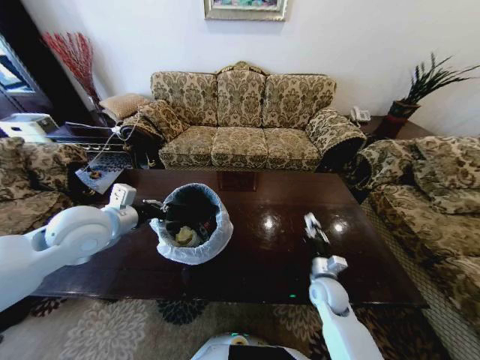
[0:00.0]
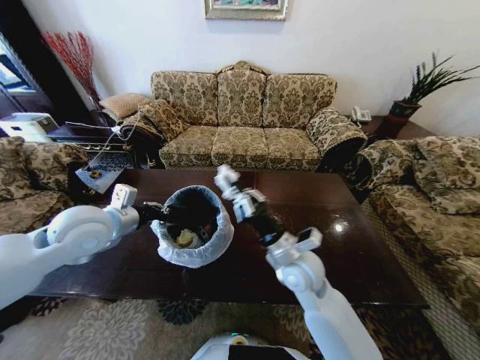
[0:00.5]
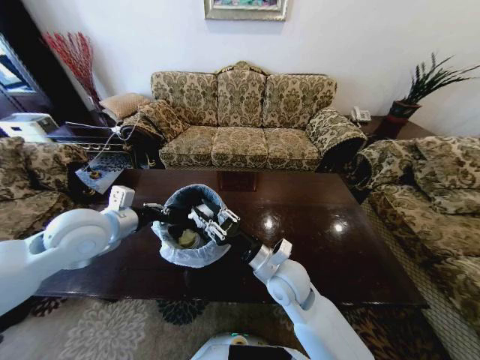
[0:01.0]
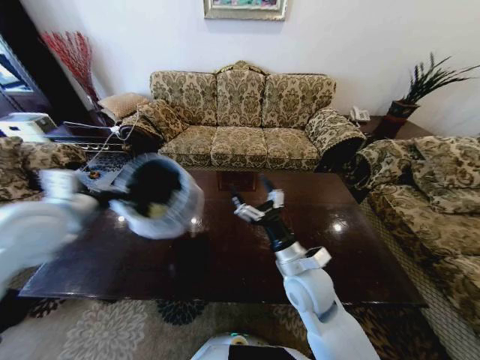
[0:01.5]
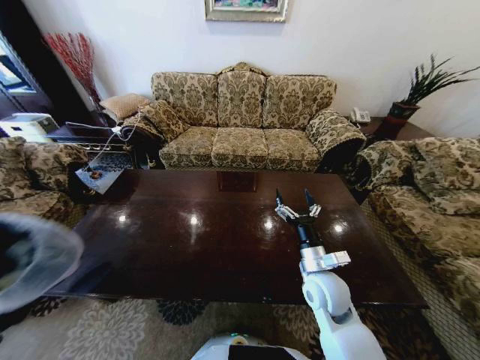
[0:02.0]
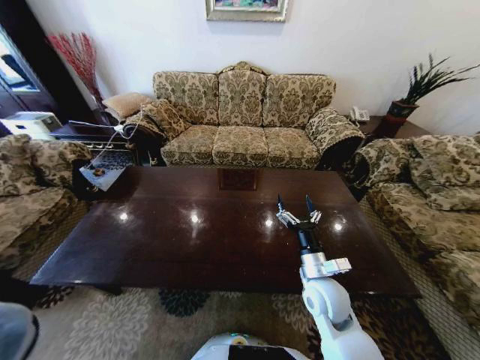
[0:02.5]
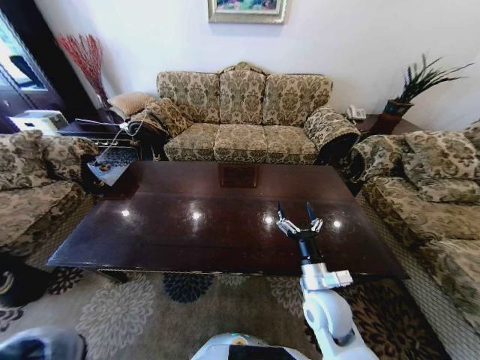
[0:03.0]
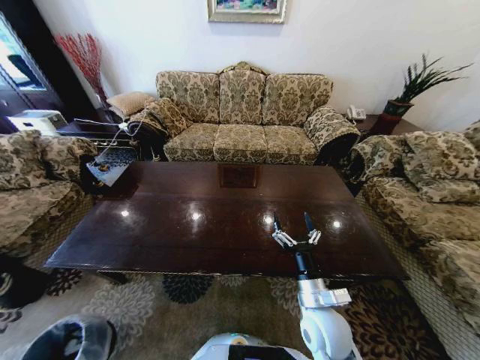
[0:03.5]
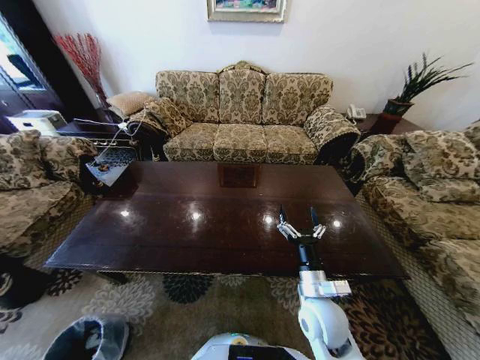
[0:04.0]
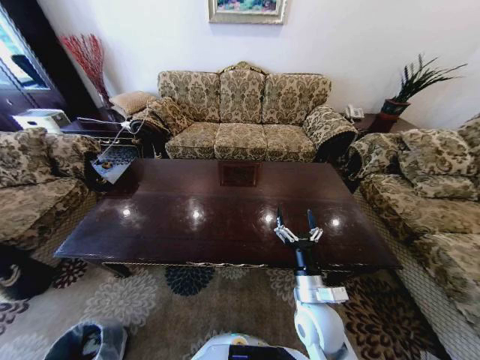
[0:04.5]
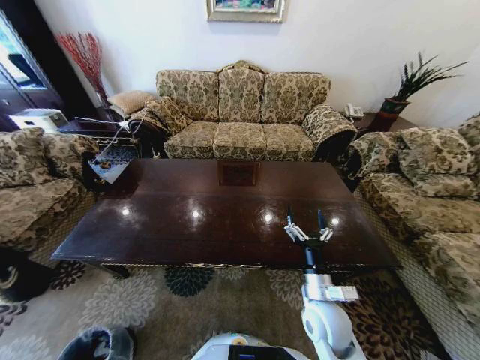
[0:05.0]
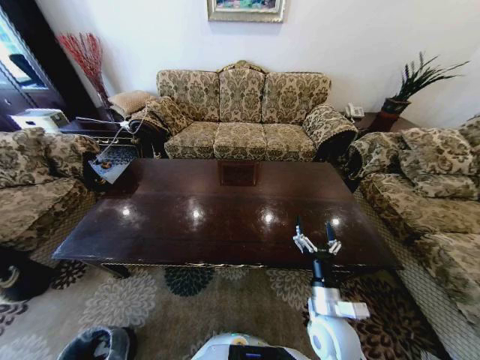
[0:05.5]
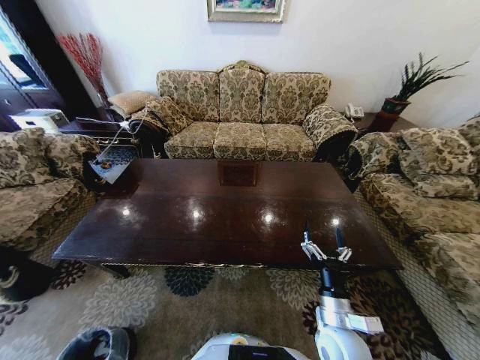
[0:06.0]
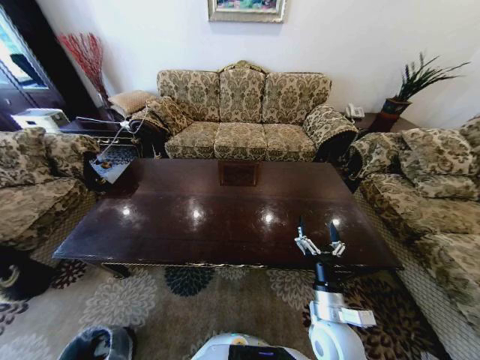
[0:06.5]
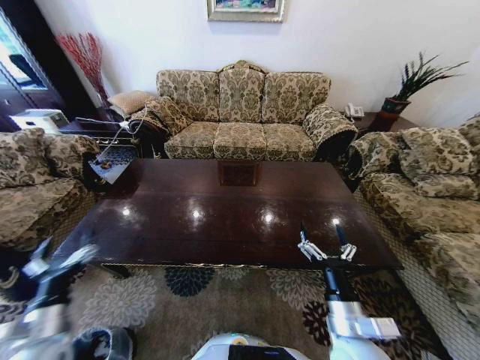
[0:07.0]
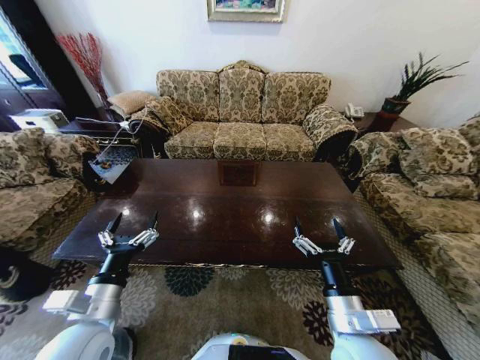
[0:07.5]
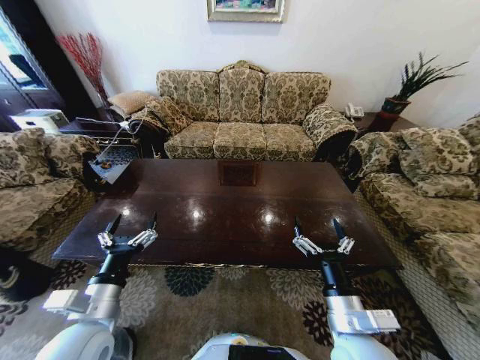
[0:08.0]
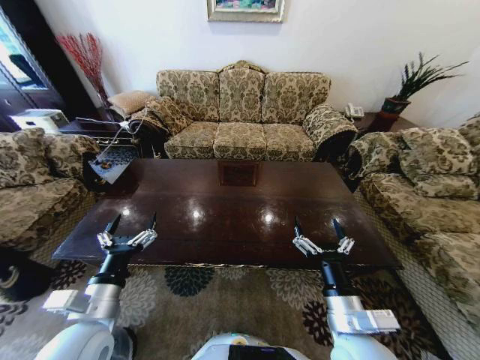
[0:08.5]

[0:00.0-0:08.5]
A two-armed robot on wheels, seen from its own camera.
Task of the whole recording: Move to the front of the table and place the trash on the table into the trash bin.
0:00.0 to 0:02.0: The left gripper heads to the left and backward, covering some 30 cm; the right gripper heads upward, covering about 10 cm, reaches about 15 cm to the left, then returns, and opens its fingers.
0:02.0 to 0:04.0: The right gripper moves backward, approximately 5 cm; the left gripper travels downward by approximately 50 cm.
0:04.0 to 0:06.5: The left gripper goes about 10 cm backward, and opens its fingers. Meanwhile the right gripper ends up roughly 5 cm from where it was.
0:06.5 to 0:08.5: The left gripper heads upward, to the right and forward, covering about 50 cm, while the right gripper goes about 10 cm upward.

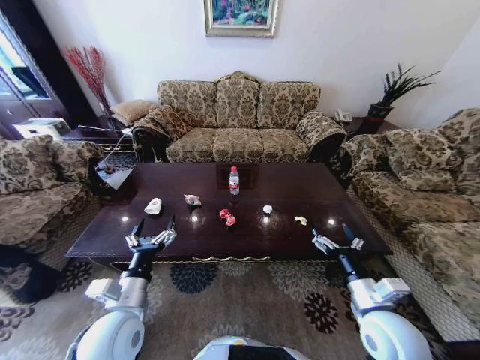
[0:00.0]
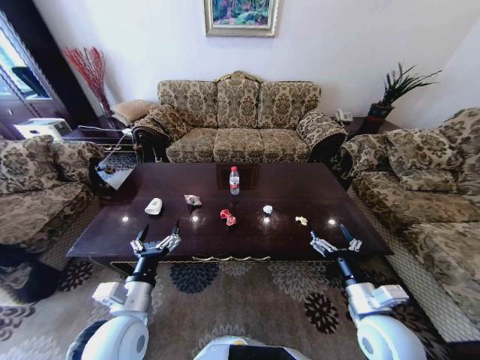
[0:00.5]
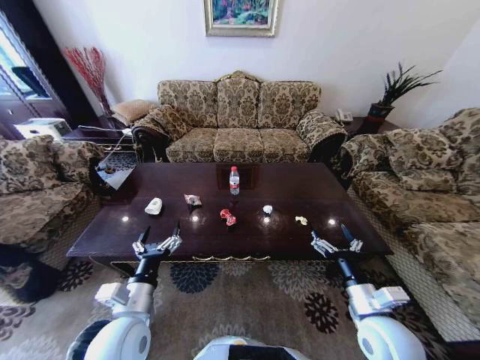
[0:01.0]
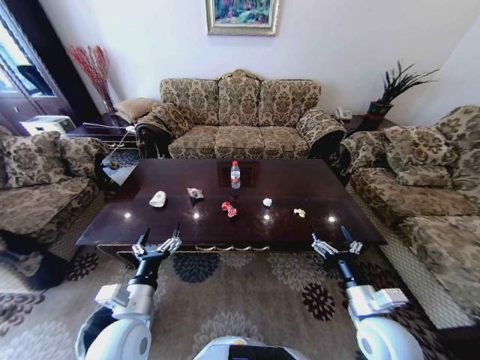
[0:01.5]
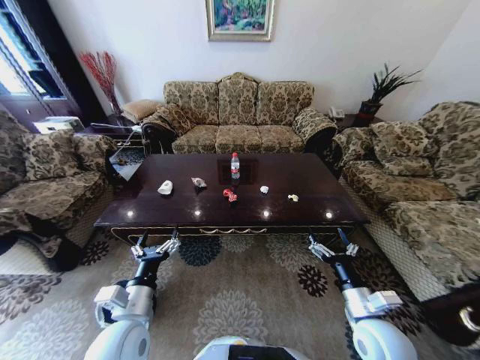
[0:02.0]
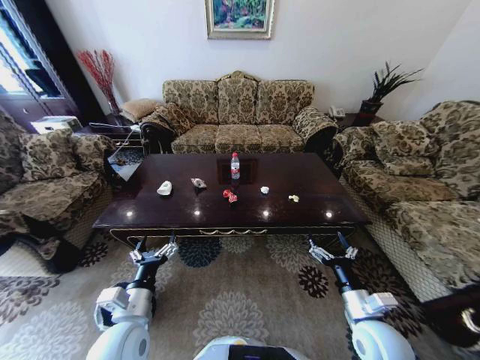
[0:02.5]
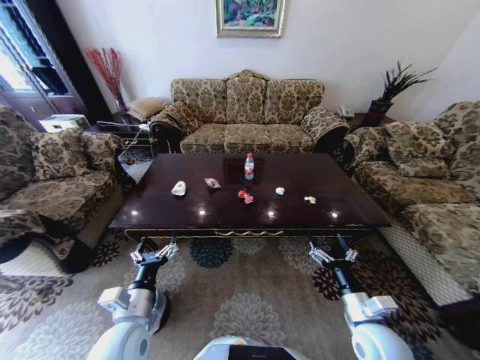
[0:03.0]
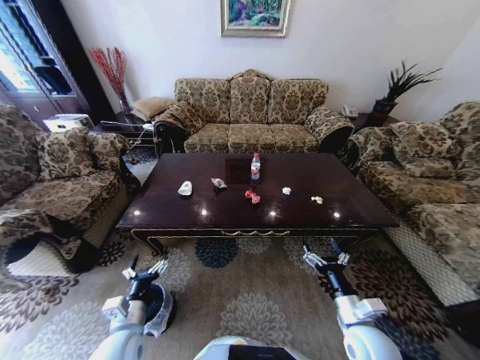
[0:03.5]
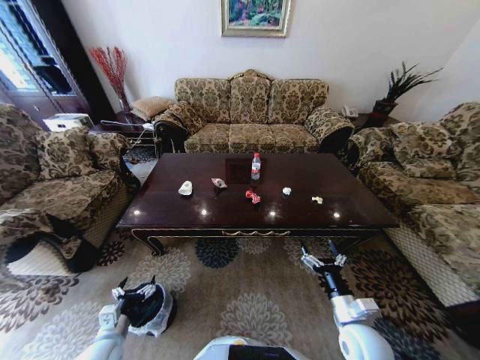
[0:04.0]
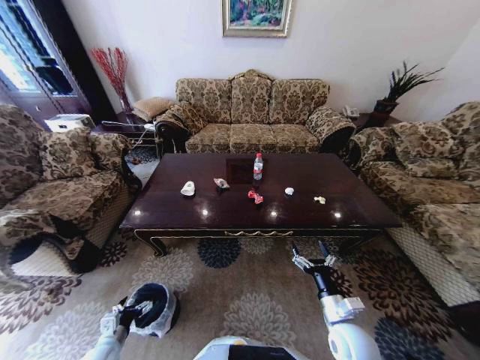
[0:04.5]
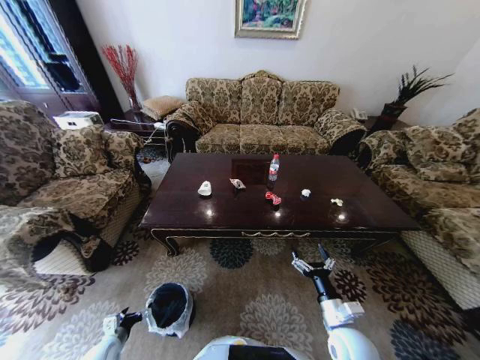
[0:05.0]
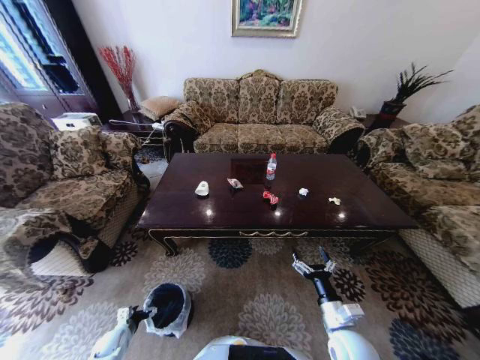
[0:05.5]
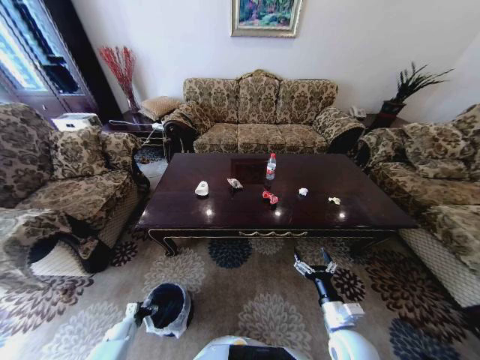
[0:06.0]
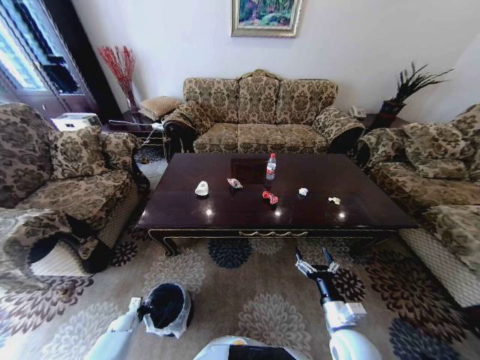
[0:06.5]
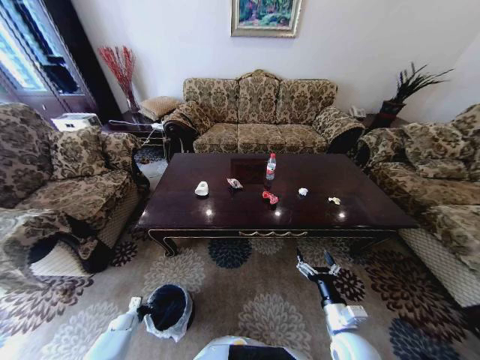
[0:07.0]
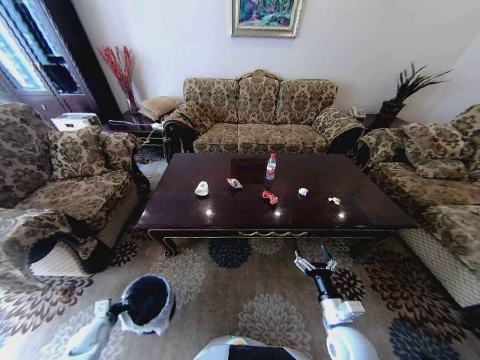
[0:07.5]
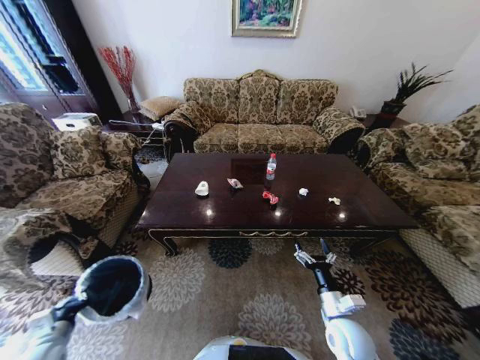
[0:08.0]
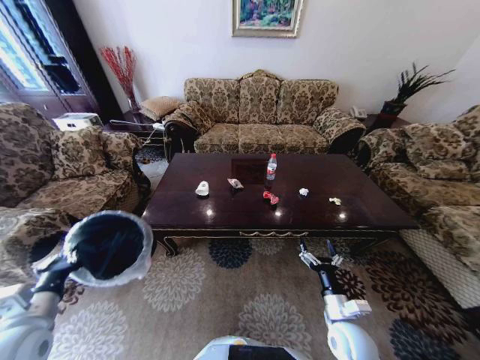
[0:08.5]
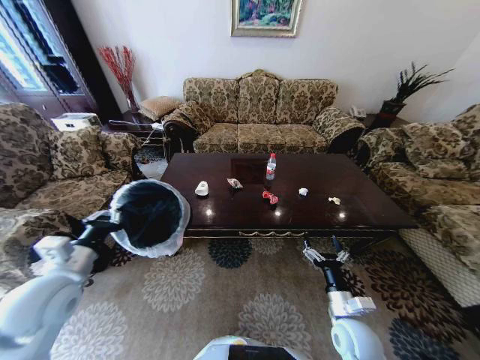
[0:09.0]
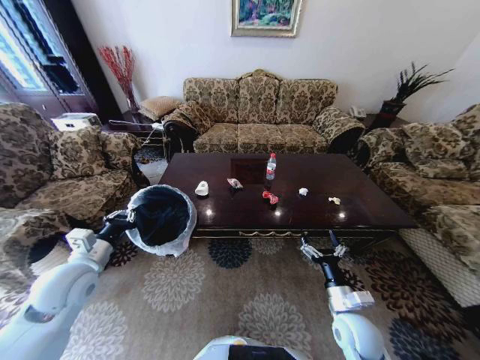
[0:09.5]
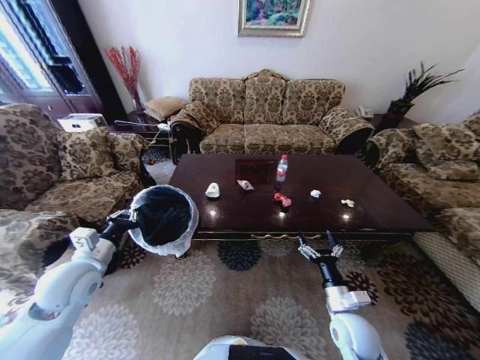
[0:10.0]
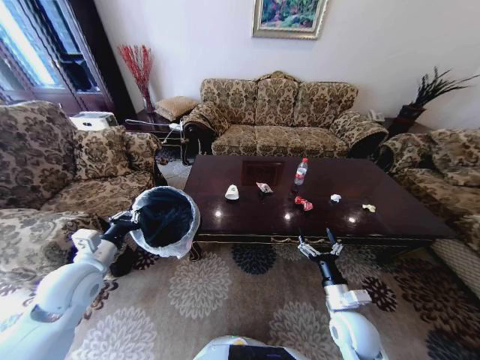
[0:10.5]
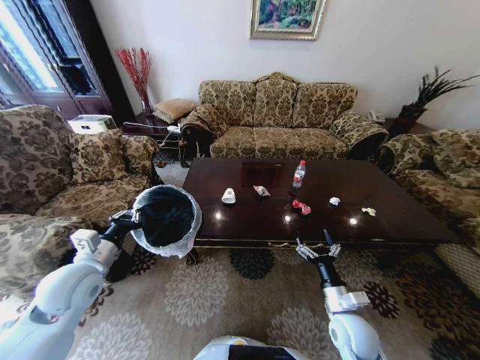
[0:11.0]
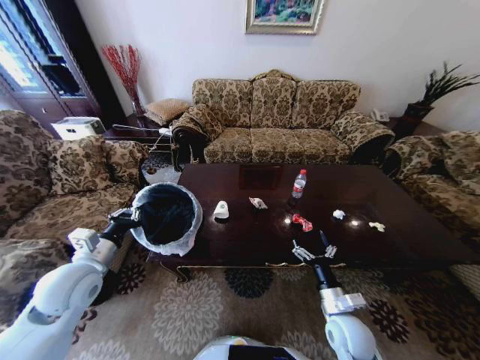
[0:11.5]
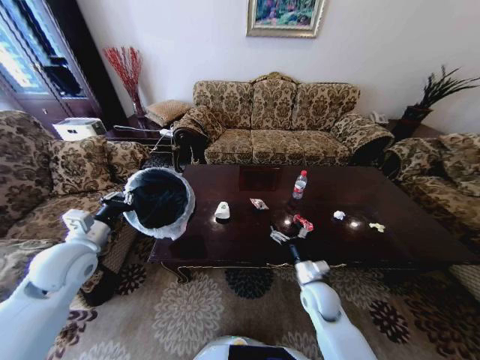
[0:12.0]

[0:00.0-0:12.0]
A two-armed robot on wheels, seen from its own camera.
Task of the whole recording: Move to the front of the table and place the trash on the table into the trash bin.
0:02.0 to 0:04.0: The left gripper moves downward and to the left, roughly 20 cm, while the right gripper shifts approximately 5 cm downward.
0:04.0 to 0:06.0: The left gripper shifts some 25 cm downward and to the left.
0:06.0 to 0:08.0: The left gripper goes some 25 cm upward, and closes up.
0:08.0 to 0:10.0: The left gripper goes roughly 25 cm upward, forward and to the right.
0:10.0 to 0:12.0: The right gripper is displaced forward and to the left by roughly 10 cm.

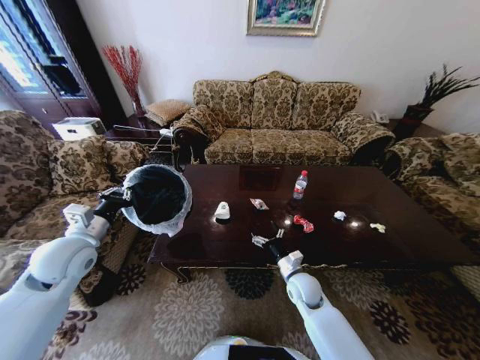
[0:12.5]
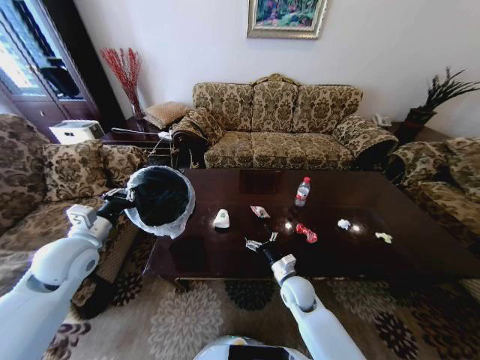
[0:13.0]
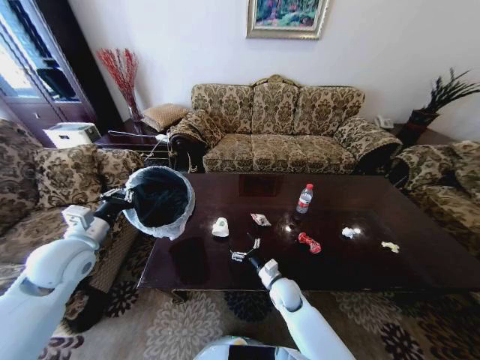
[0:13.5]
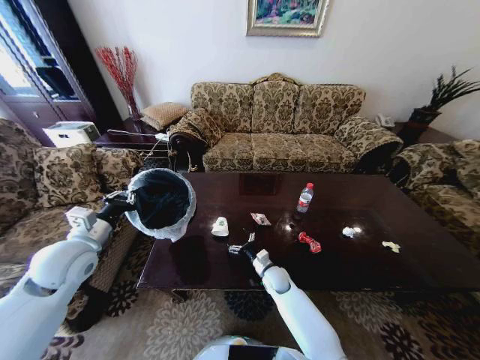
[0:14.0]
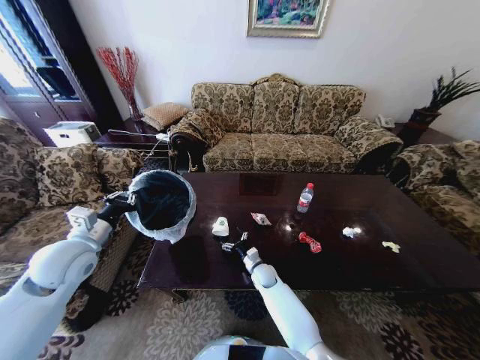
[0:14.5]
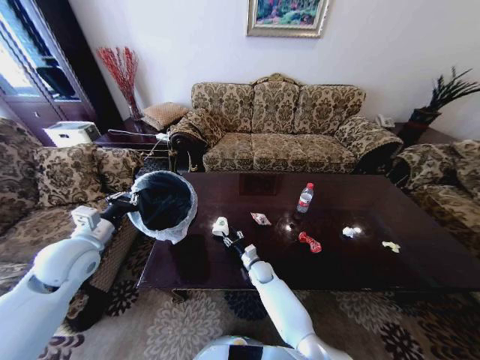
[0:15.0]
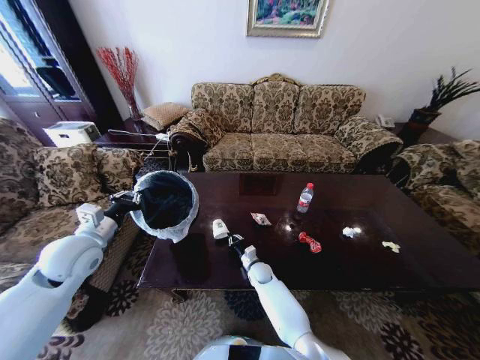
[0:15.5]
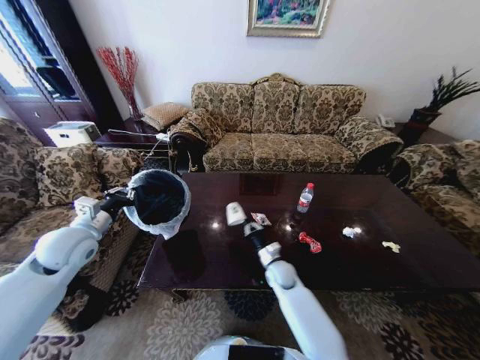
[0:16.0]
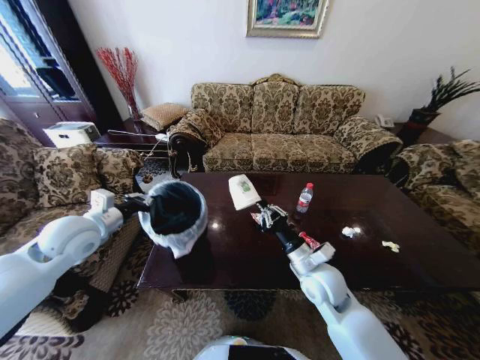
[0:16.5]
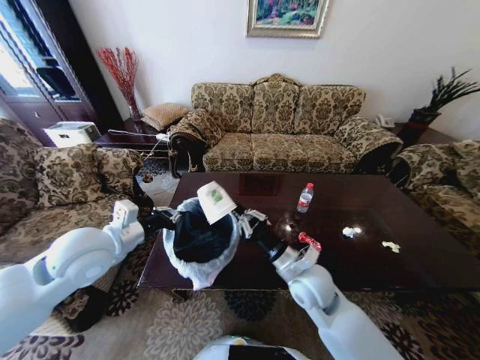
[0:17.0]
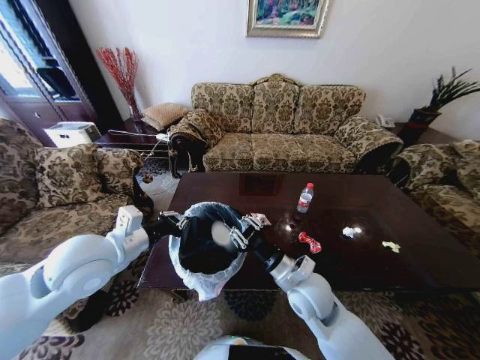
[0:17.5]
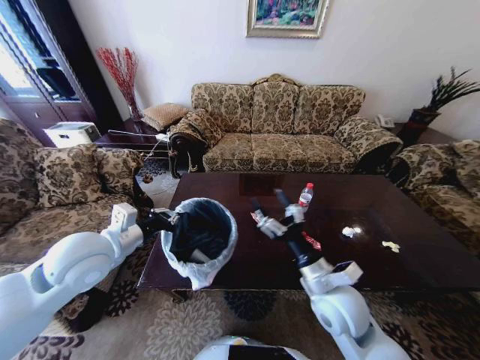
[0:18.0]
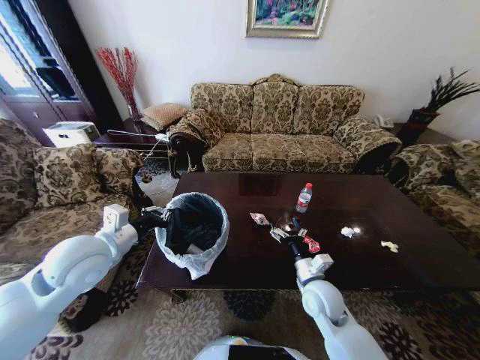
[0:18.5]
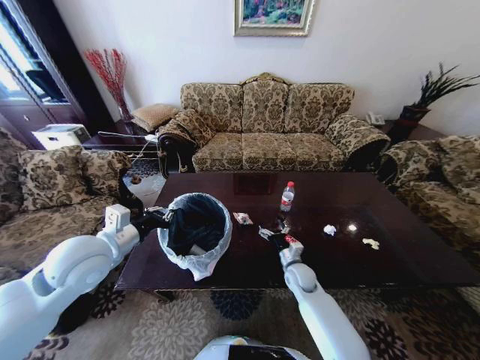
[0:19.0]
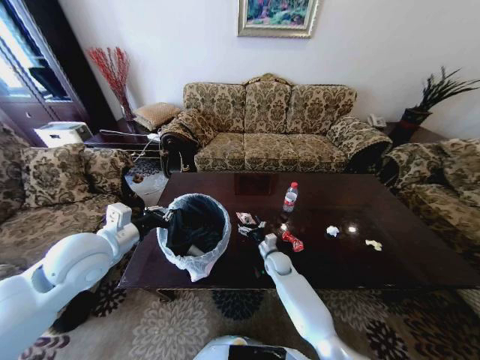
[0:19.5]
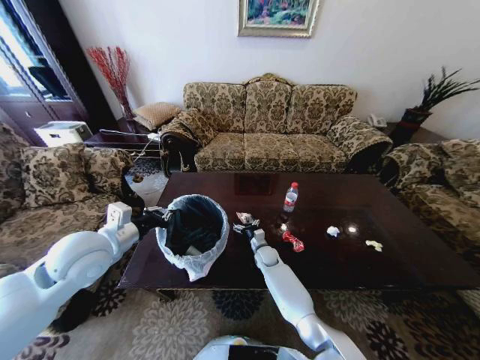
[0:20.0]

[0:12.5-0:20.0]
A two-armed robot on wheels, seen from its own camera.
Task of the whole recording: Move to the front of the table and place the trash on the table into the trash bin.
0:12.5 to 0:14.5: The right gripper moves to the left, downward and forward, approximately 15 cm.
0:14.5 to 0:16.5: The right gripper shifts approximately 30 cm upward, to the right and backward, and closes up. The left gripper shifts by roughly 5 cm.
0:16.5 to 0:18.0: The left gripper travels to the right and backward by roughly 10 cm. The right gripper moves backward, roughly 5 cm, and opens its fingers.
0:18.0 to 0:20.0: The right gripper shifts some 35 cm downward and forward.
